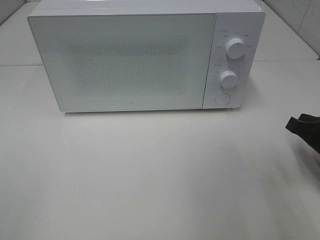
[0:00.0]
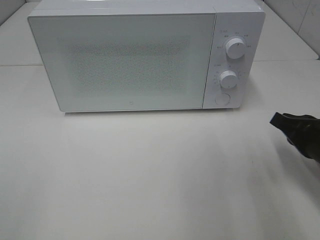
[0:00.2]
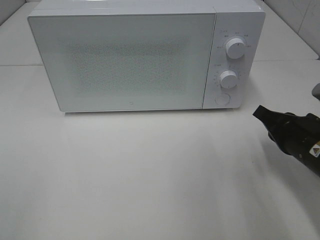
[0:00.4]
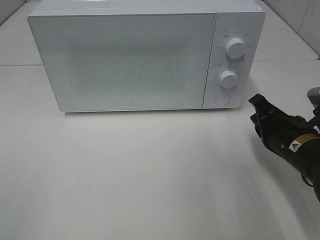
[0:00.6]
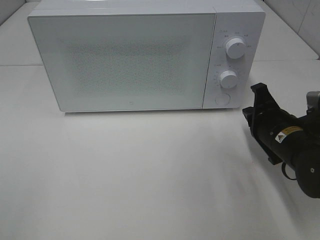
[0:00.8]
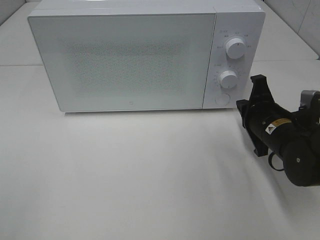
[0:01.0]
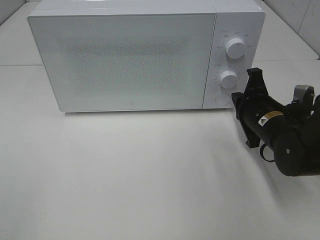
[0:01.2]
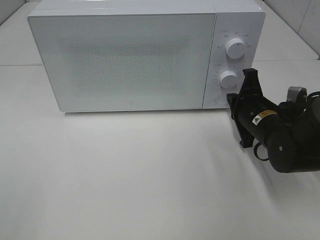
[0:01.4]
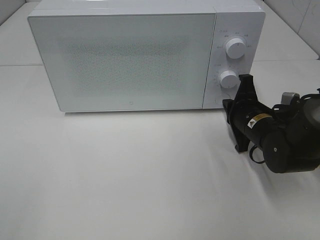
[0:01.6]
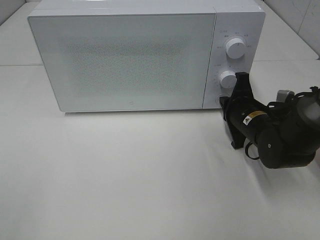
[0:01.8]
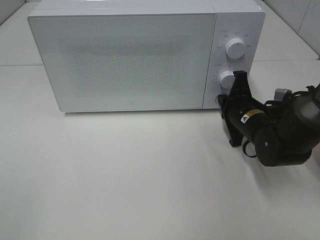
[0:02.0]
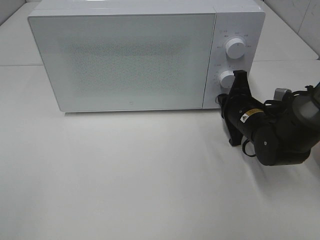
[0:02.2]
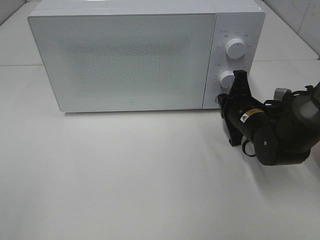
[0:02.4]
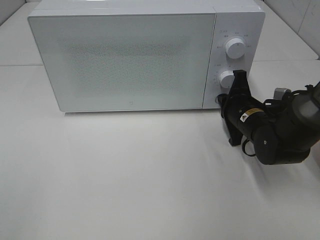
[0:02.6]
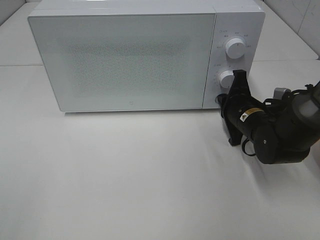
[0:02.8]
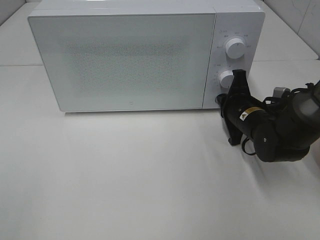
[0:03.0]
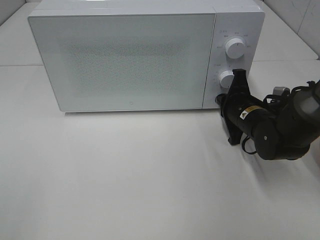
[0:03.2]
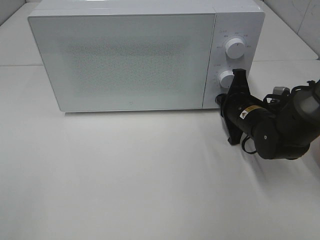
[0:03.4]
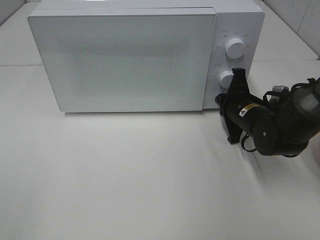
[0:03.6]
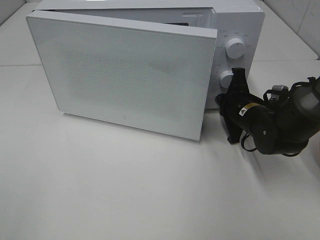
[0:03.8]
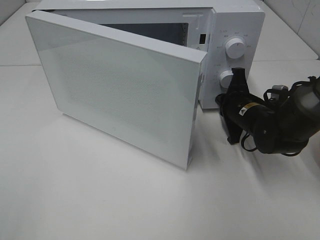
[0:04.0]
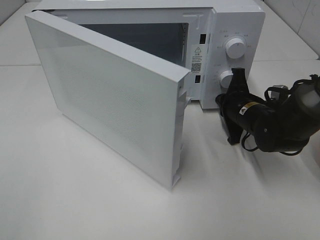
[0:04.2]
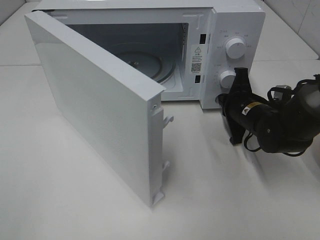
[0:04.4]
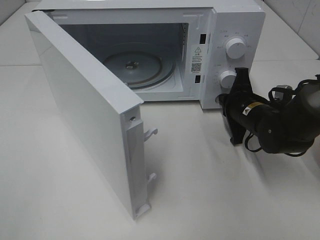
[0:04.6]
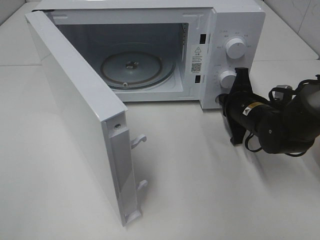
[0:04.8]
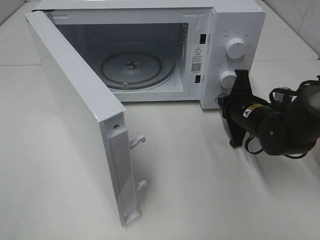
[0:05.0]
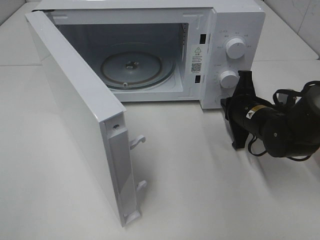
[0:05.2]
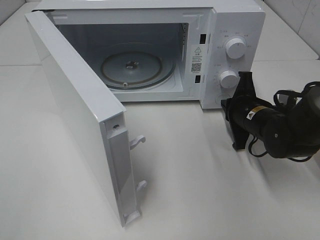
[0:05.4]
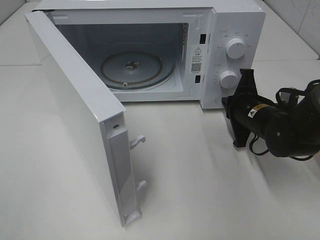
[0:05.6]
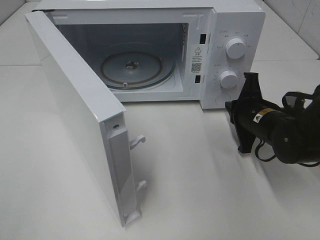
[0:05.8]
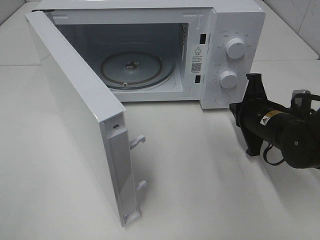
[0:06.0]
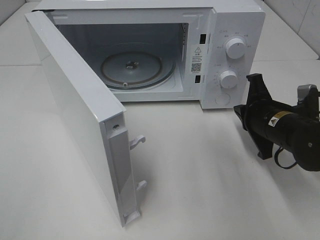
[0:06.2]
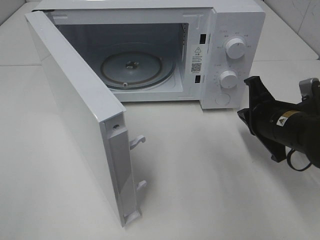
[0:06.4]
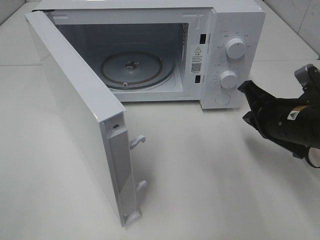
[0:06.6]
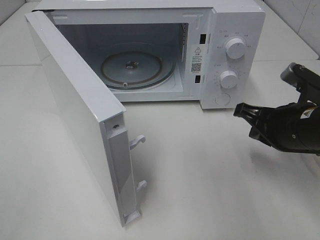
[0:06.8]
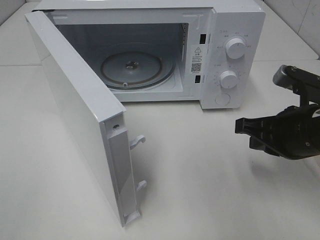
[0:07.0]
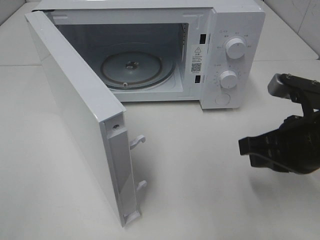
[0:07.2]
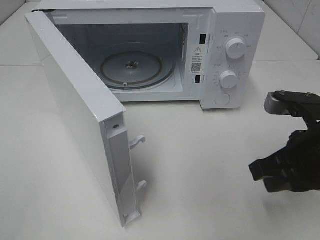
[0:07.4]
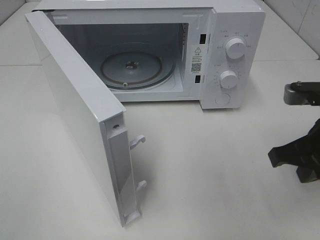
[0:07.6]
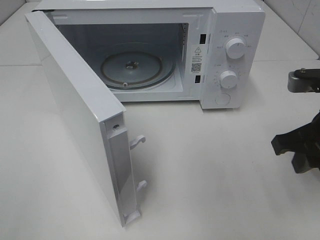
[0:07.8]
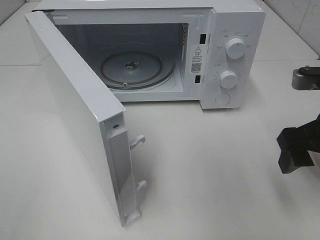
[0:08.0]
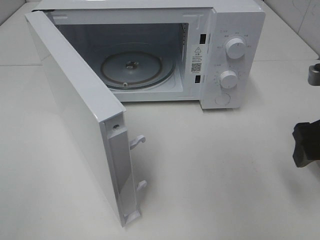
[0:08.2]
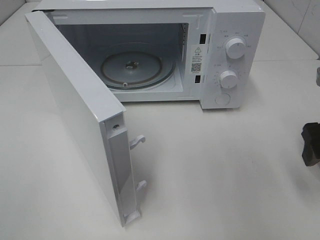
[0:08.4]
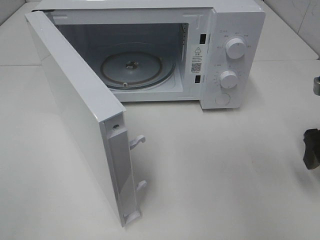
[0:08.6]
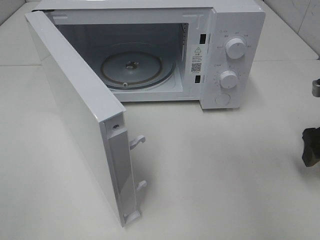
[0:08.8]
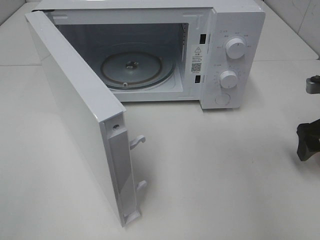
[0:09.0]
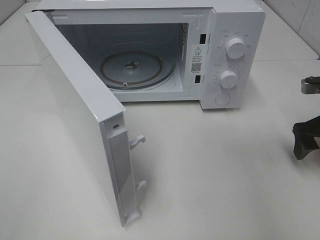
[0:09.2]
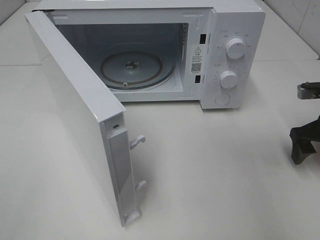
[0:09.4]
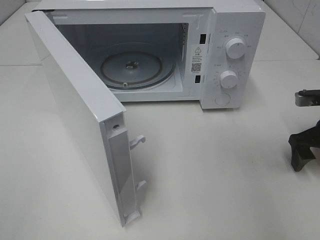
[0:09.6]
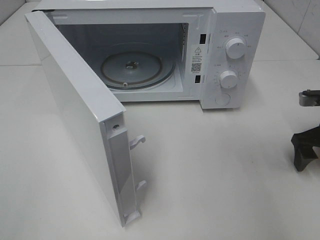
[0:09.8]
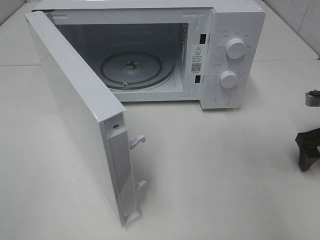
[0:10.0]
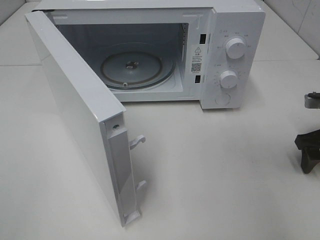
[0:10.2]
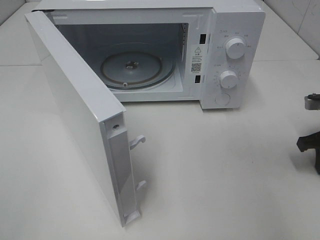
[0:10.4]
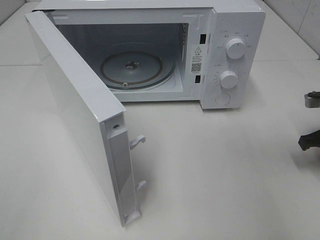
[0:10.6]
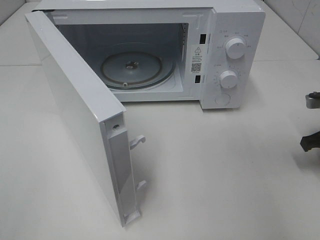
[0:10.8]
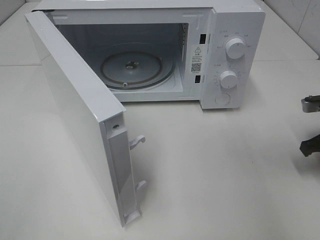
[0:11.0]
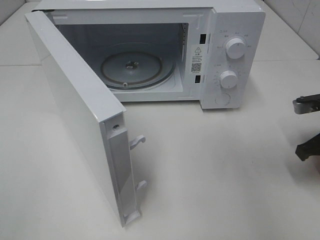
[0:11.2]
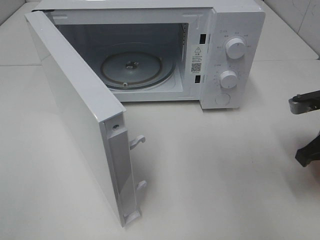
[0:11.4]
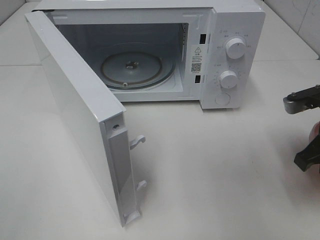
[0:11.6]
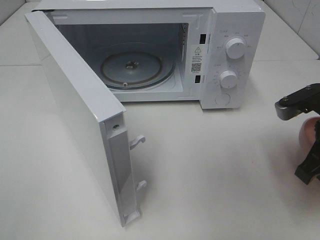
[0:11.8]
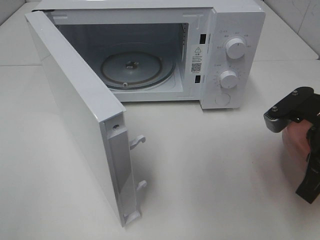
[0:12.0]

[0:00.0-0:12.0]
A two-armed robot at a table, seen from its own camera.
Task of the whole recording: Heat the burger.
Step, 0:00.0 to 0:05.2: Right hand: press the switch.
Step, 0:05.4 to 0:10.6: Right hand: grab the plate with the hamburger.
0:00.0 to 0:01.6: The right gripper heads forward, to the left and downward, covering about 15 cm.
0:01.6 to 0:03.0: The grippers stay close to where they were, moving slightly.
0:06.0 to 0:07.6: The right gripper travels backward and upward by about 15 cm.
0:07.6 to 0:09.0: The right gripper goes some 15 cm forward and to the right, and opens its fingers.
0:09.0 to 0:10.4: The right gripper closes its fingers.
0:10.4 to 0:12.0: The right gripper moves to the left, backward and upward, roughly 15 cm, and closes its fingers.

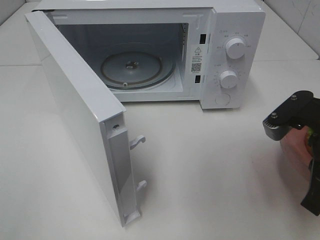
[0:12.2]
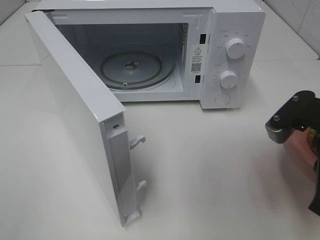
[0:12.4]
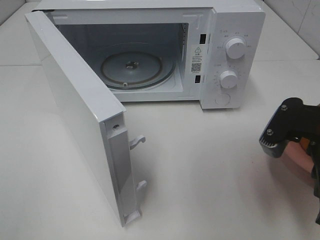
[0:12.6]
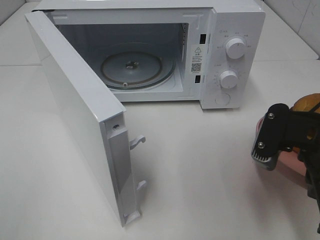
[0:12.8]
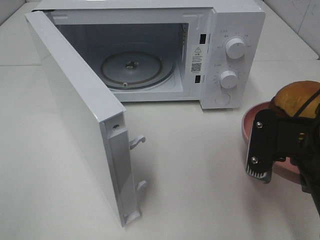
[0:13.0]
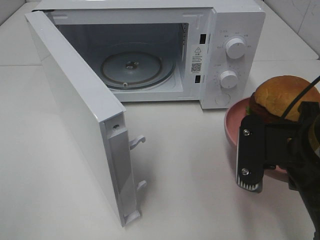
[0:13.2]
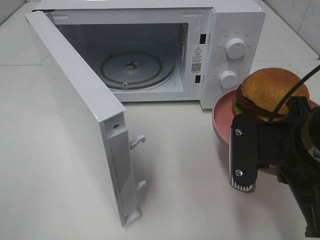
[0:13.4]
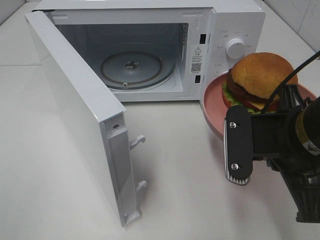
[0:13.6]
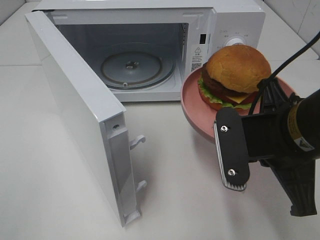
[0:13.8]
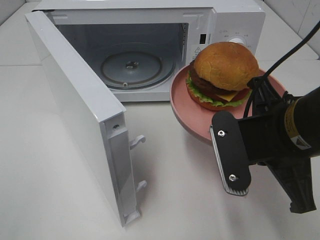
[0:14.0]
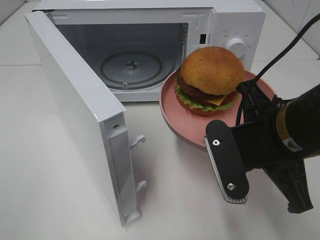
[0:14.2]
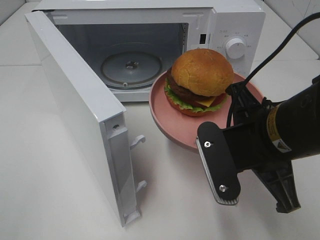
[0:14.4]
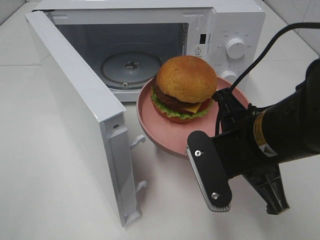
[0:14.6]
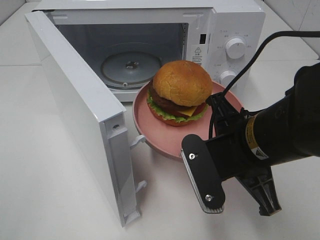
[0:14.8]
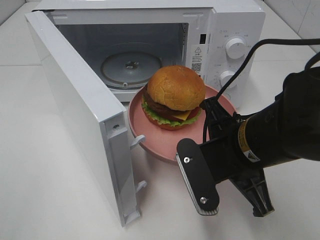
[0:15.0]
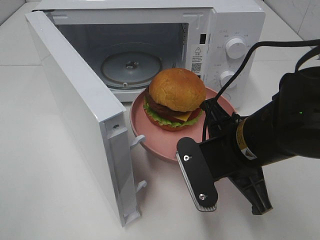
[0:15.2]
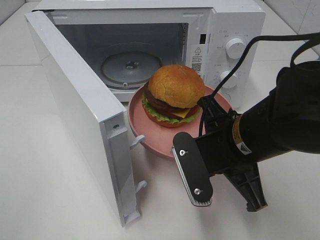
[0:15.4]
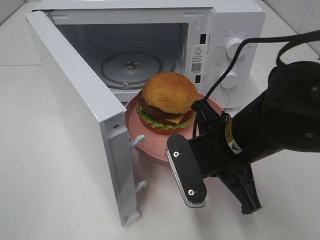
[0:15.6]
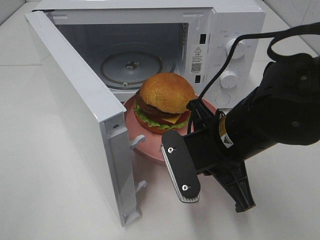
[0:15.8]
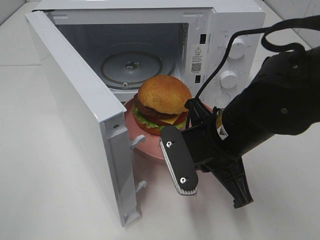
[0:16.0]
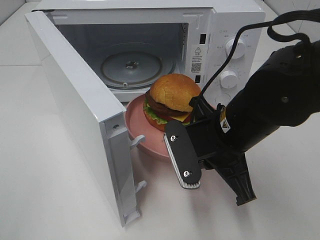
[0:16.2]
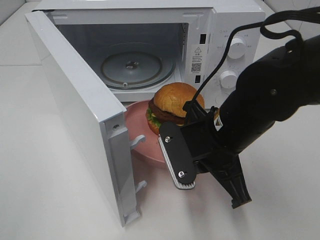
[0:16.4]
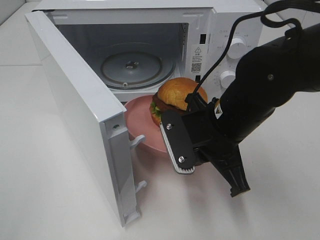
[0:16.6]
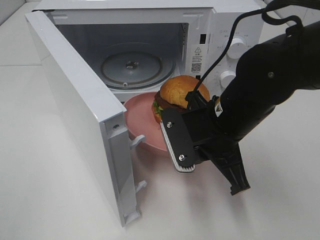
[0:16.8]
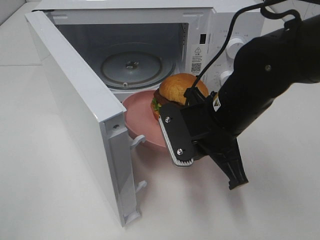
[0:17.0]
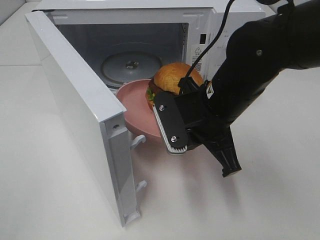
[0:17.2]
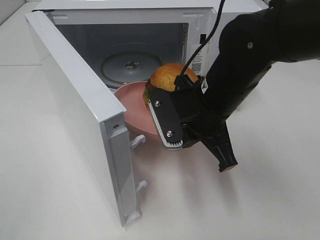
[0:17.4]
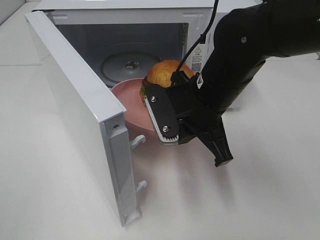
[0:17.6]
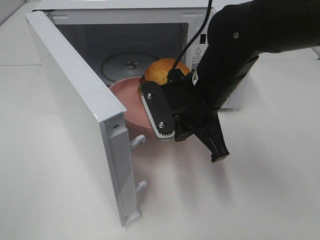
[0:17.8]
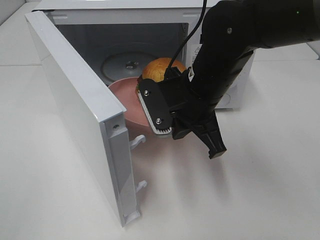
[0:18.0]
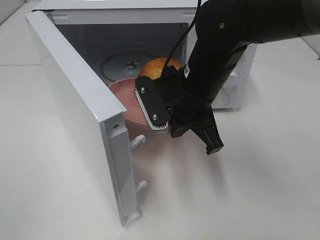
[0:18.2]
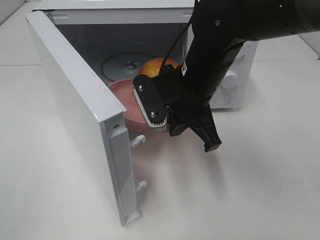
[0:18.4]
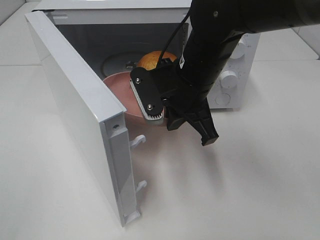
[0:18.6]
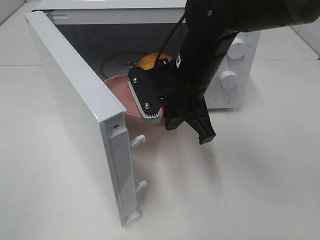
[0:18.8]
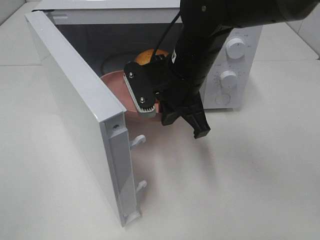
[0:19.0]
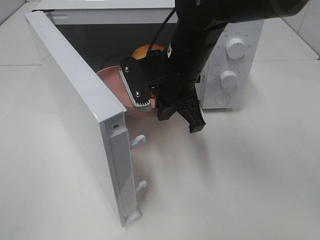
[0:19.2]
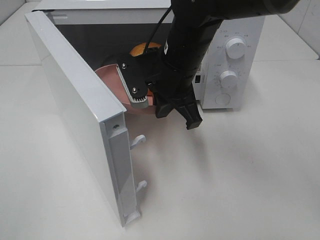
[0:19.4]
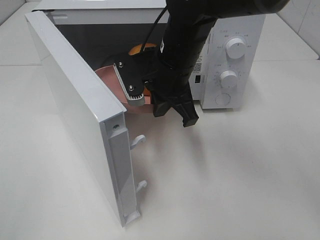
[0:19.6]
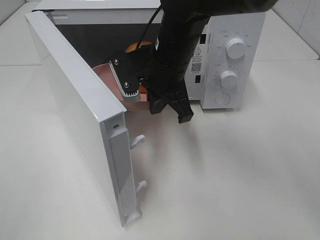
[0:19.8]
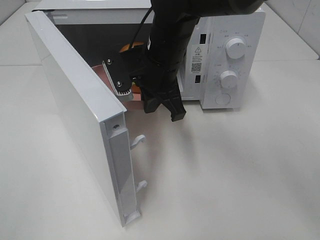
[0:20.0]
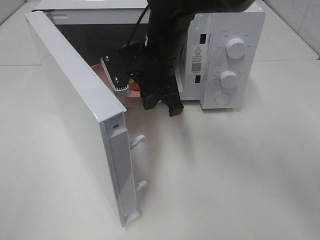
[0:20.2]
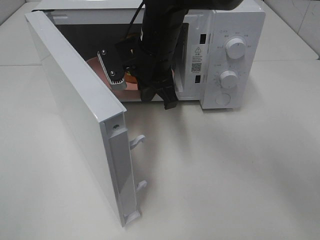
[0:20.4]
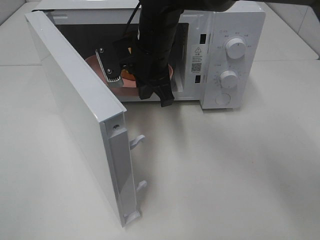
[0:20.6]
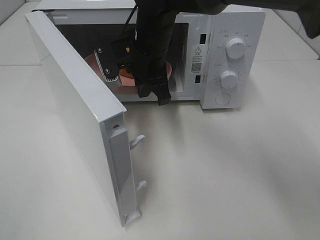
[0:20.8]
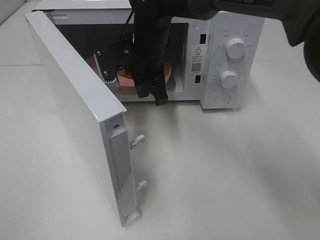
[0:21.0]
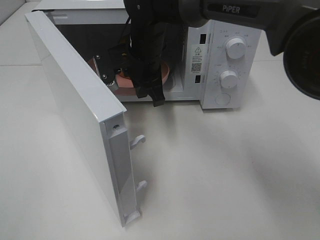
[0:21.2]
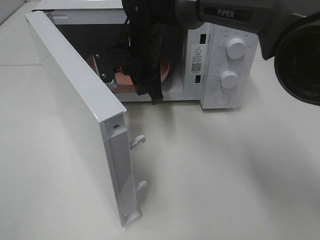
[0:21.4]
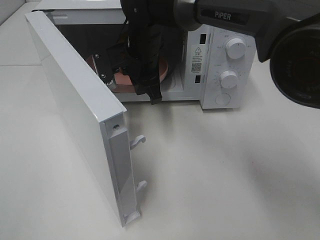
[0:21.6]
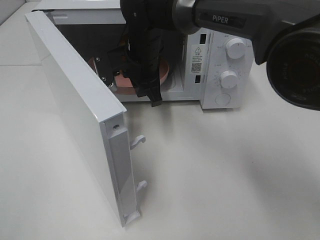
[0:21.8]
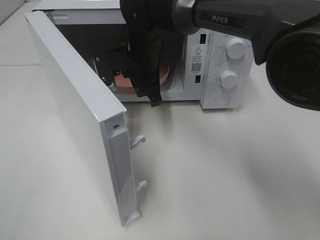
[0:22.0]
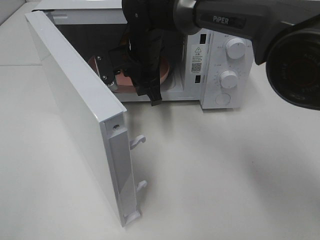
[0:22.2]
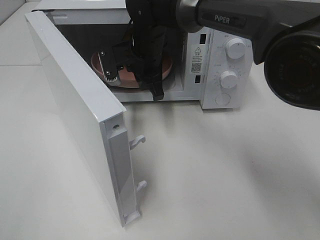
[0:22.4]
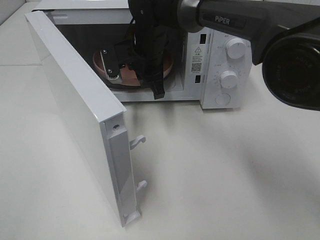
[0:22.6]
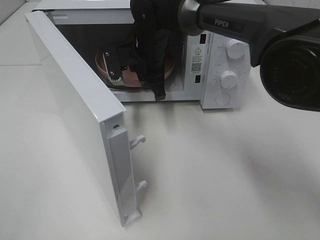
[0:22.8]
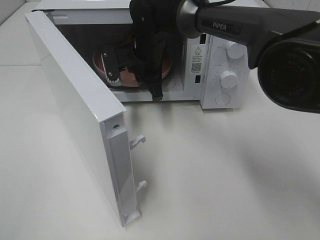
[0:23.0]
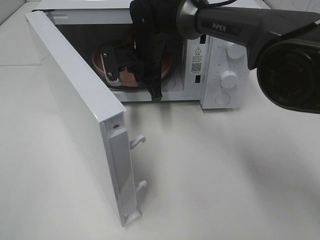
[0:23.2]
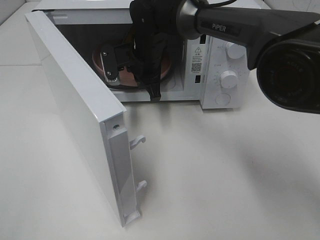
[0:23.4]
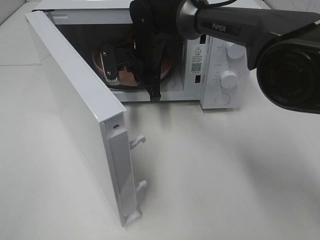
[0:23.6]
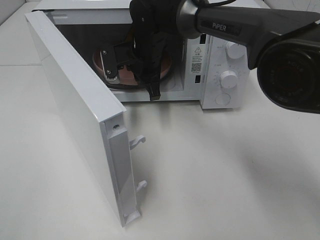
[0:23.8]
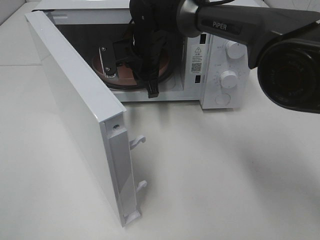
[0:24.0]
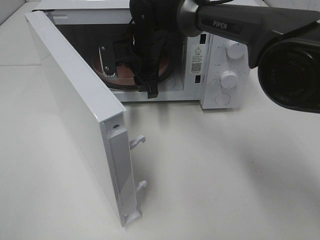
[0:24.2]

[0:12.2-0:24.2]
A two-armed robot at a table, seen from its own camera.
Task of the whole recording: Heat the burger.
Step, 0:12.2 to 0:24.0: Right hand: place the plate in the microwave.
0:12.2 to 0:13.8: The right gripper travels to the left by roughly 5 cm.
0:13.8 to 0:15.2: The right gripper changes place by roughly 5 cm.
0:16.6 to 0:18.2: The right gripper moves roughly 5 cm.
0:18.2 to 0:19.8: The right gripper moves some 5 cm.
0:19.8 to 0:21.2: The right gripper is displaced forward by some 5 cm.
0:21.2 to 0:22.6: The grippers stay close to where they were, moving slightly.
0:22.6 to 0:24.2: The right gripper opens.
